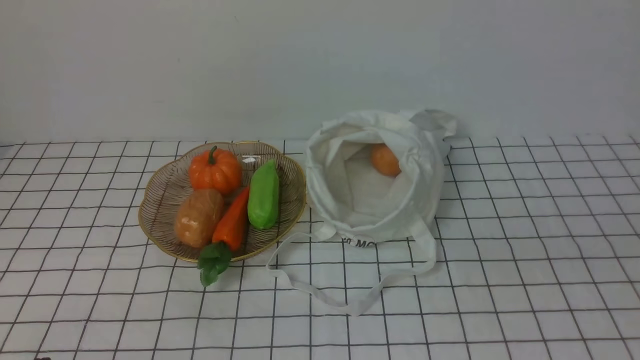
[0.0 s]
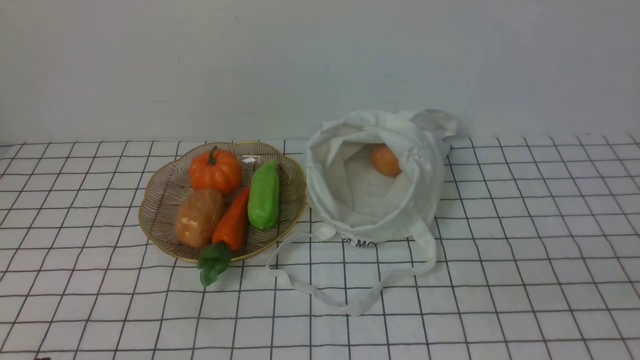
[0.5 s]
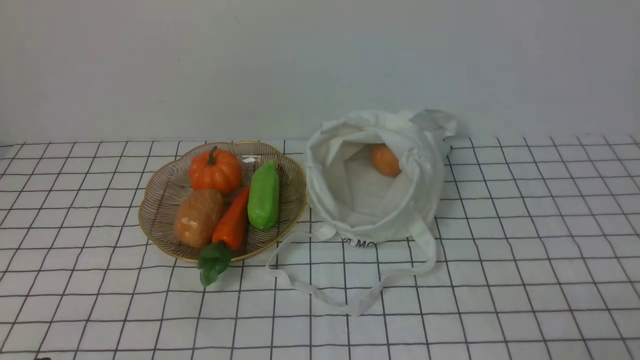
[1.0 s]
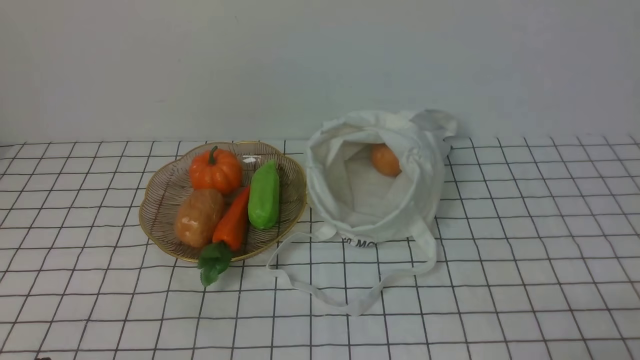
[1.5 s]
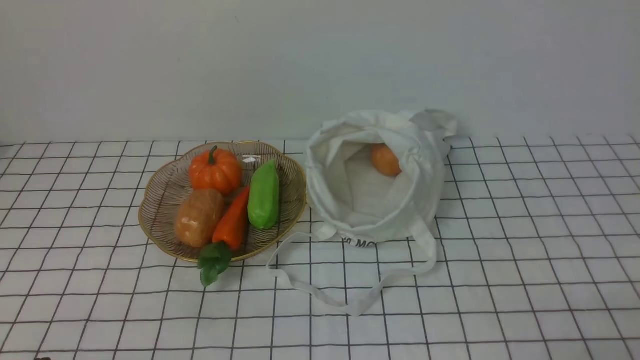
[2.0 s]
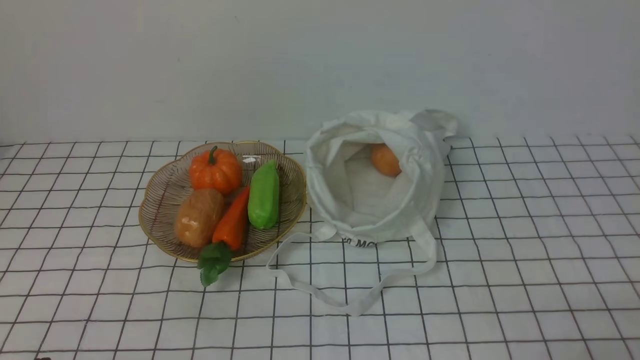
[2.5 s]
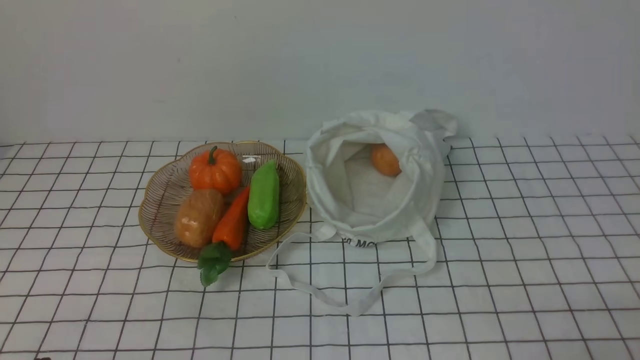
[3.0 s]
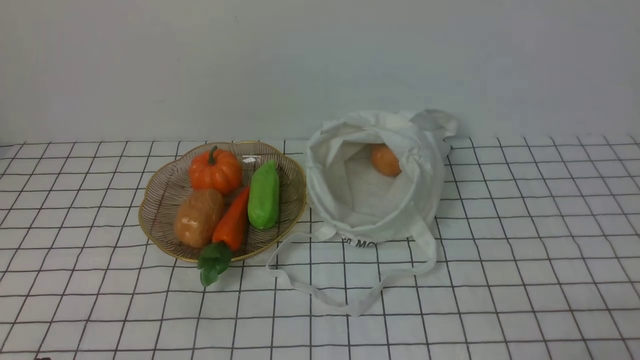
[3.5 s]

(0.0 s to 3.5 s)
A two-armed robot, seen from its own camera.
Task of the whole recording: take vegetables from bag on white checkered tablecloth place on plate.
2.0 s - 3.5 s: The two grippers keep their place.
